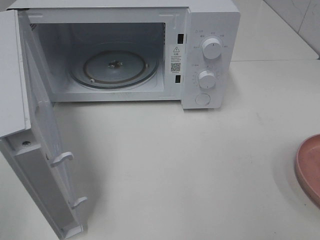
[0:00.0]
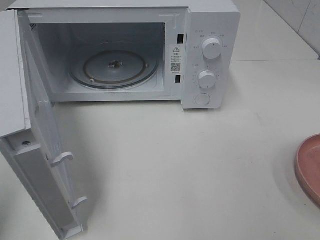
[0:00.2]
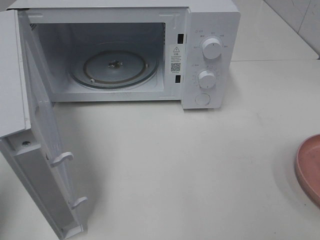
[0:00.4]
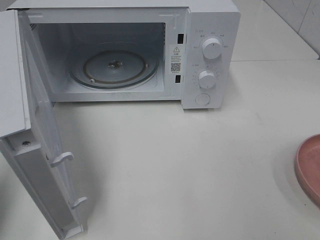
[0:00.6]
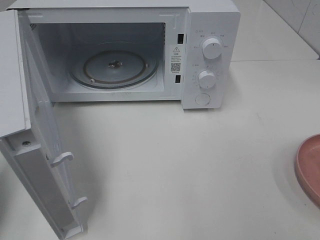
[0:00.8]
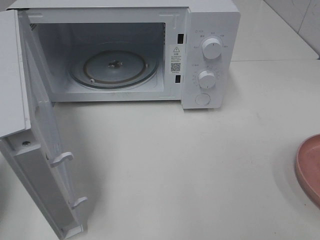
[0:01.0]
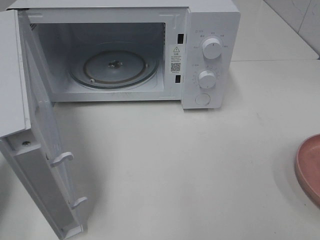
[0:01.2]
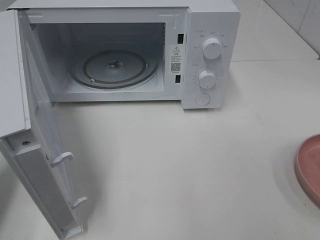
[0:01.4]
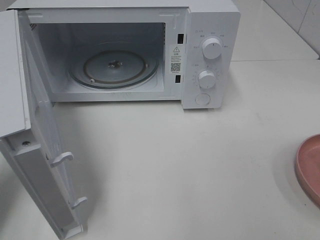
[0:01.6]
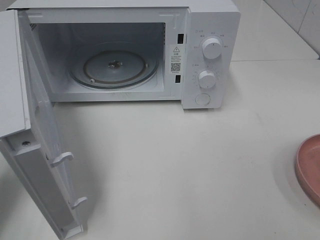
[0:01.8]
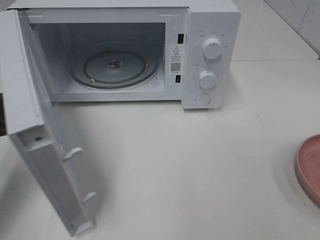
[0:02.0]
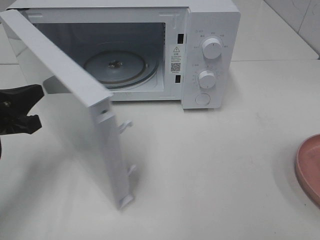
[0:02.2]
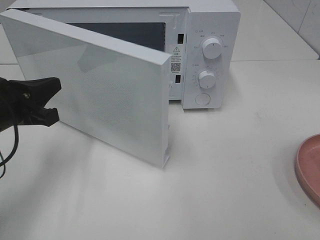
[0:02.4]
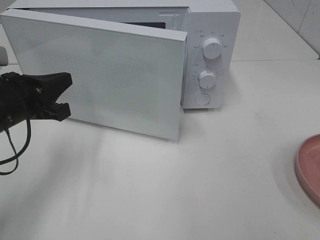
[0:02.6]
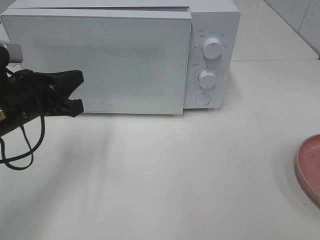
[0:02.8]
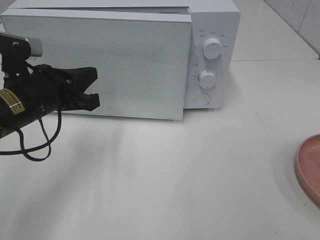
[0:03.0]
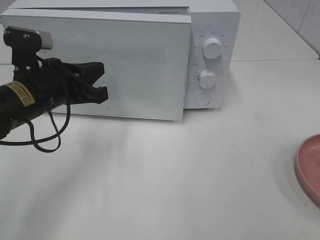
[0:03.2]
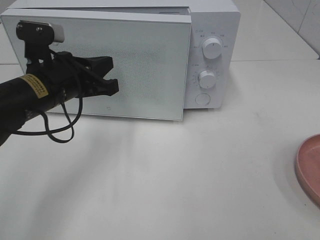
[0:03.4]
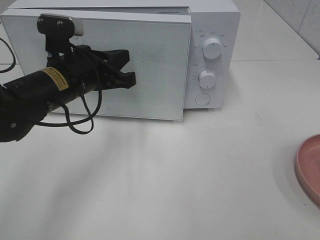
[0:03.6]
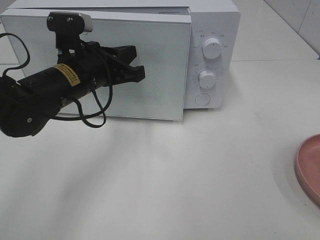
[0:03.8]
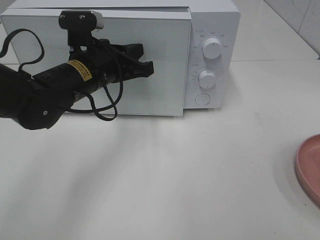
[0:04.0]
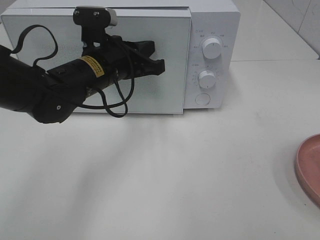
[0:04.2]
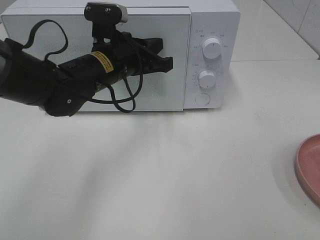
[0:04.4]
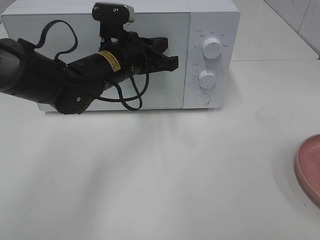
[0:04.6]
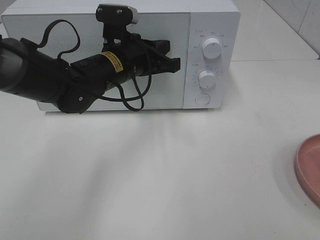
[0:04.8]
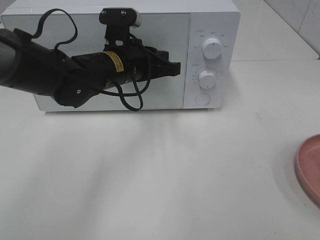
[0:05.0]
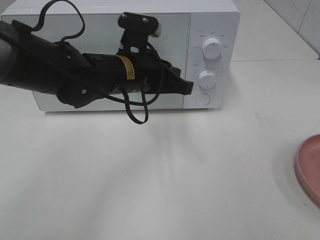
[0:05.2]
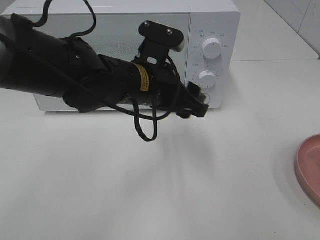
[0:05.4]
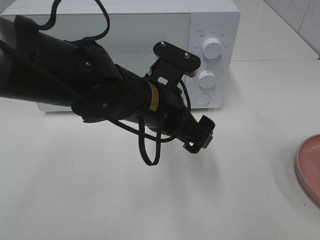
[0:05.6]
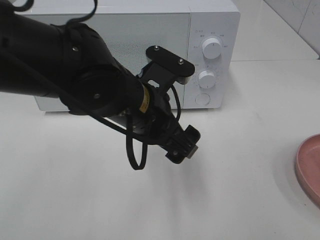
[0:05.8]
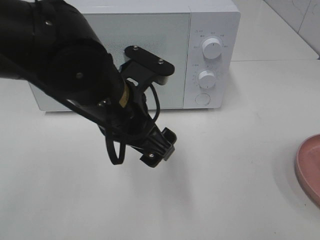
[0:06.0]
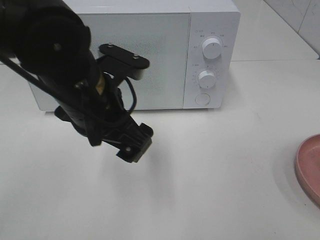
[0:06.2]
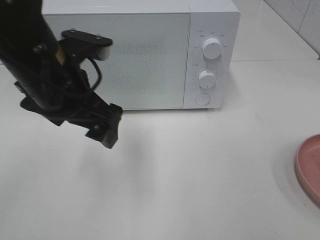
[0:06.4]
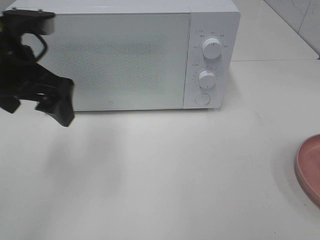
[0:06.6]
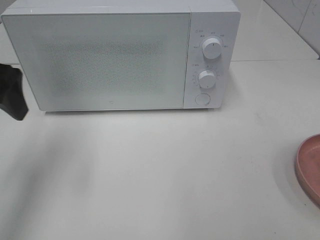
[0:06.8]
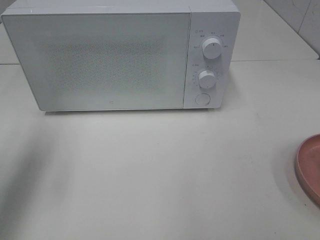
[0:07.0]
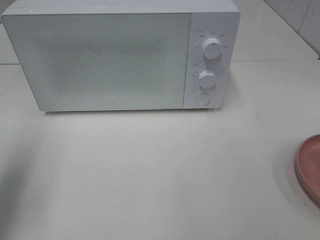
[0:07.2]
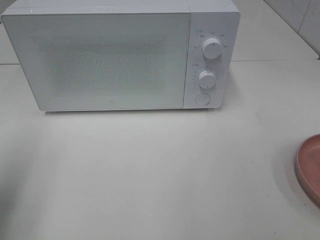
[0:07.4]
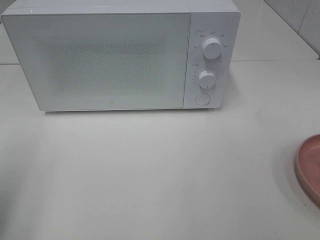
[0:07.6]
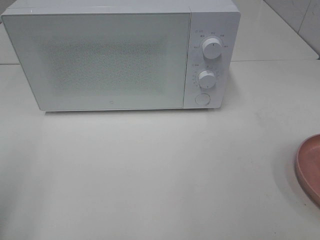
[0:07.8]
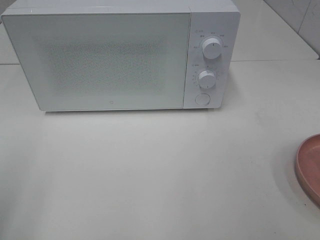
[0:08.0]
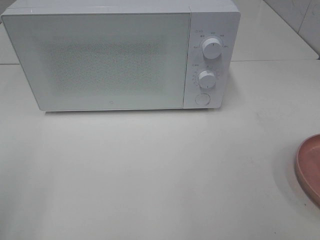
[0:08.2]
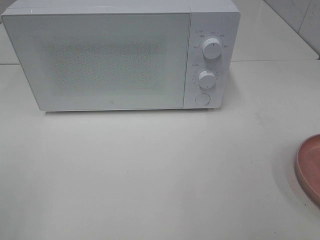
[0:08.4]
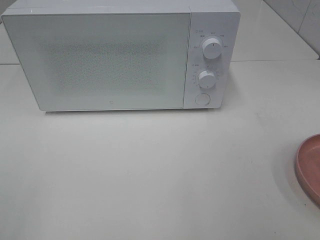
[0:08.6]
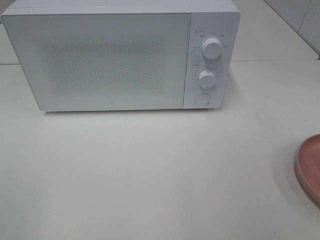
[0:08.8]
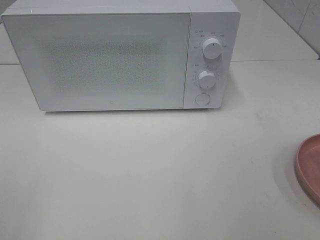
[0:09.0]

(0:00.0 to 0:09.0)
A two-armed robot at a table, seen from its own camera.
Task of the whole recording: Heat the burger.
Step, 0:00.0 - 0:03.2: Left hand: close the microwave door.
0:00.0 - 0:01.6: The left gripper shifts about 20 cm forward and downward, and closes up.
0:01.6 - 0:03.0: The left gripper is displaced to the right and forward by roughly 15 cm.
0:03.0 - 0:04.4: The left gripper shifts approximately 15 cm to the right and forward.
0:04.4 - 0:06.0: The left gripper is displaced backward by approximately 10 cm, and opens.
0:06.0 - 0:07.6: The left gripper moves to the left and backward, some 30 cm.

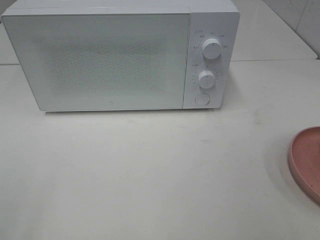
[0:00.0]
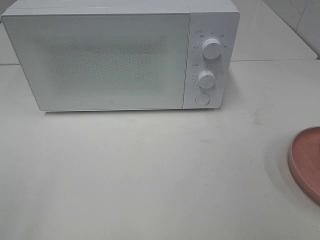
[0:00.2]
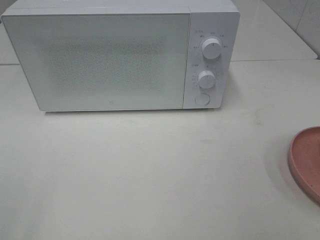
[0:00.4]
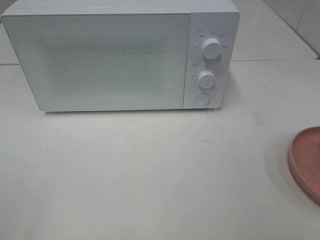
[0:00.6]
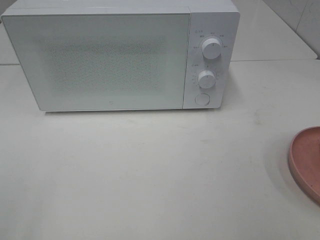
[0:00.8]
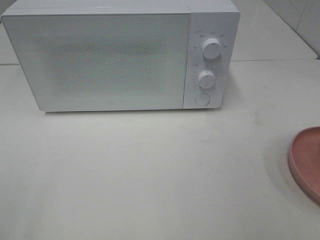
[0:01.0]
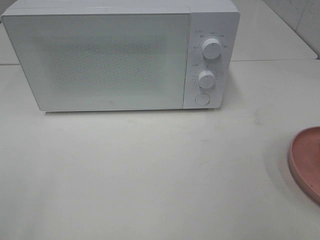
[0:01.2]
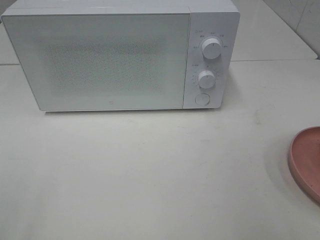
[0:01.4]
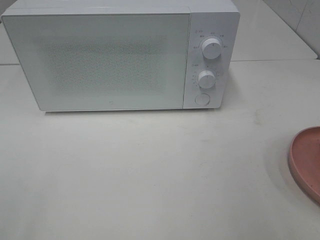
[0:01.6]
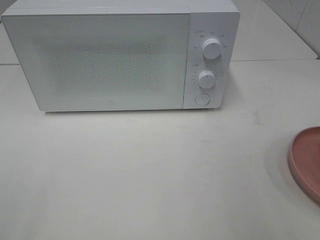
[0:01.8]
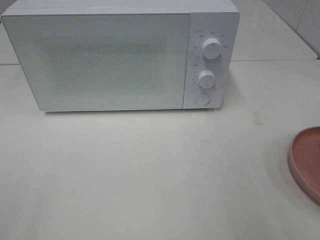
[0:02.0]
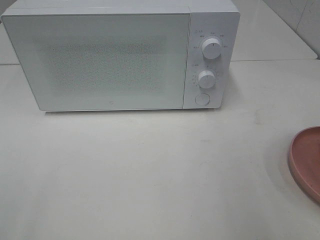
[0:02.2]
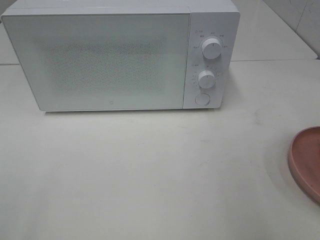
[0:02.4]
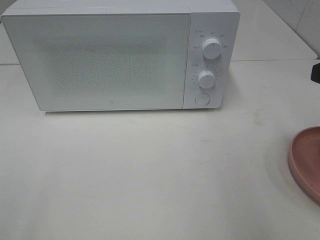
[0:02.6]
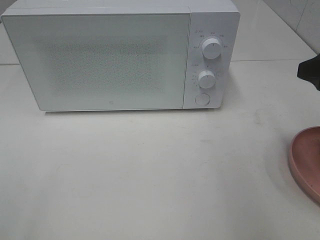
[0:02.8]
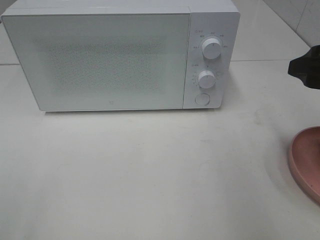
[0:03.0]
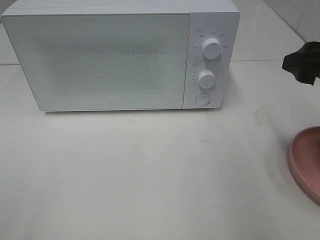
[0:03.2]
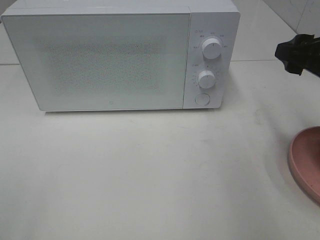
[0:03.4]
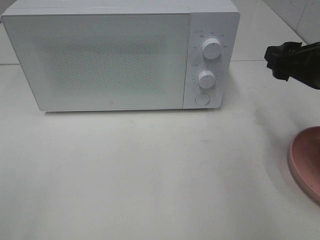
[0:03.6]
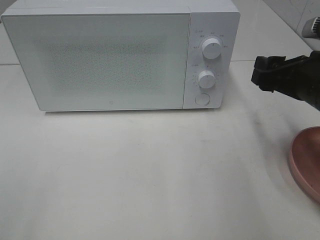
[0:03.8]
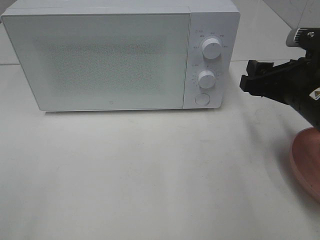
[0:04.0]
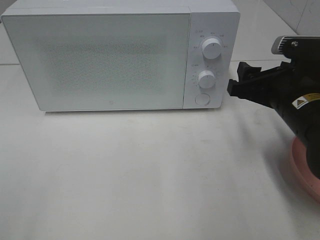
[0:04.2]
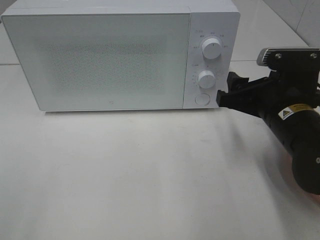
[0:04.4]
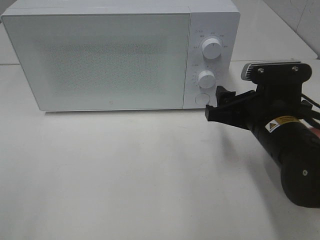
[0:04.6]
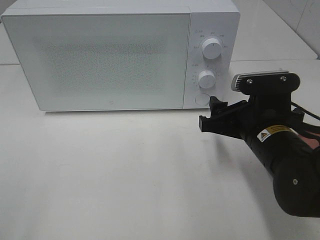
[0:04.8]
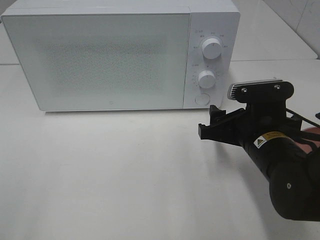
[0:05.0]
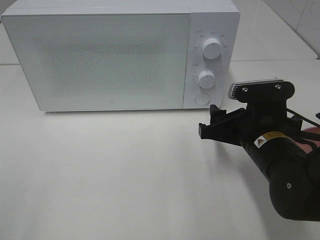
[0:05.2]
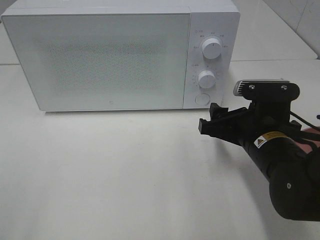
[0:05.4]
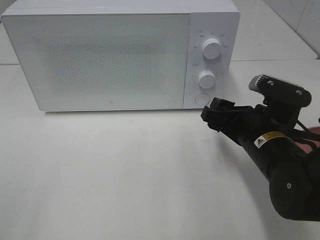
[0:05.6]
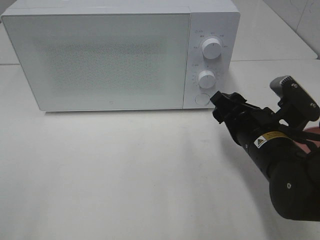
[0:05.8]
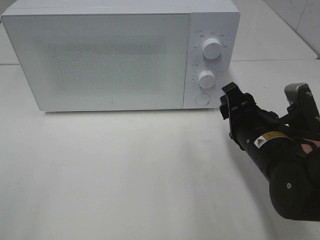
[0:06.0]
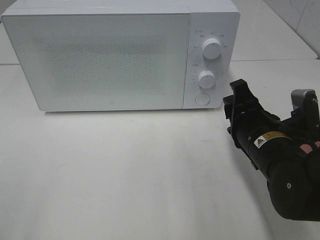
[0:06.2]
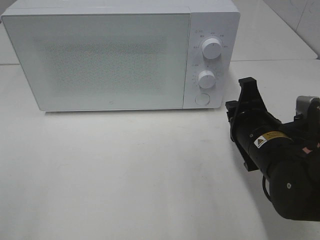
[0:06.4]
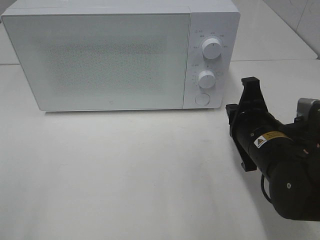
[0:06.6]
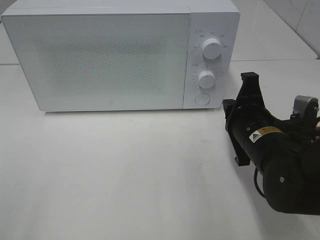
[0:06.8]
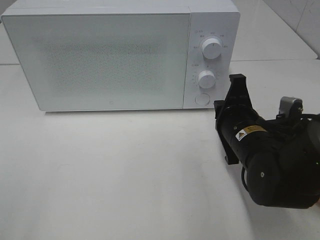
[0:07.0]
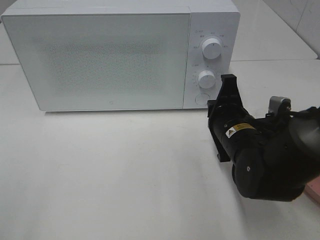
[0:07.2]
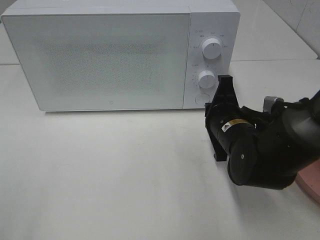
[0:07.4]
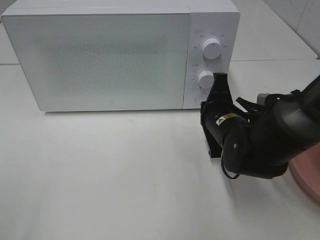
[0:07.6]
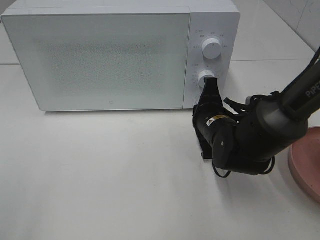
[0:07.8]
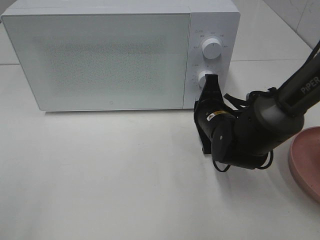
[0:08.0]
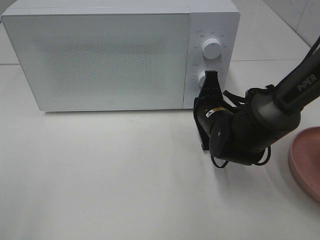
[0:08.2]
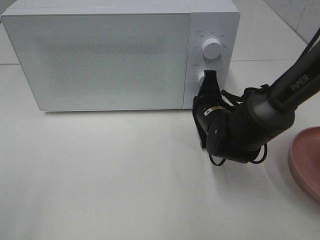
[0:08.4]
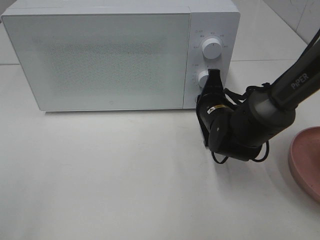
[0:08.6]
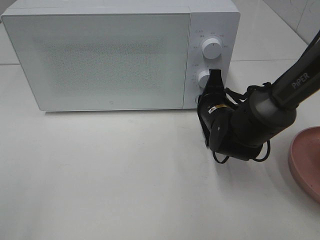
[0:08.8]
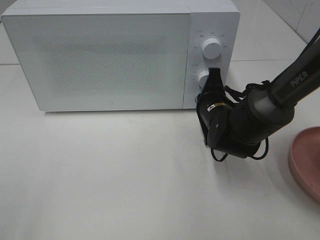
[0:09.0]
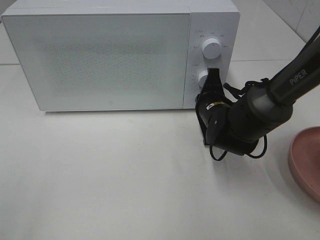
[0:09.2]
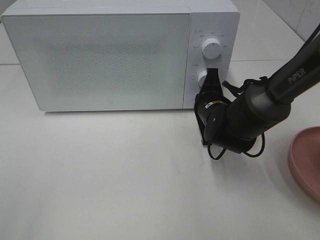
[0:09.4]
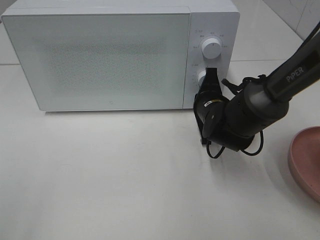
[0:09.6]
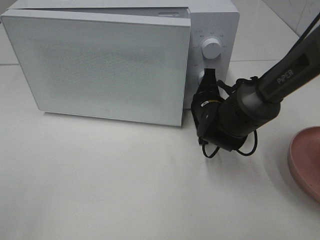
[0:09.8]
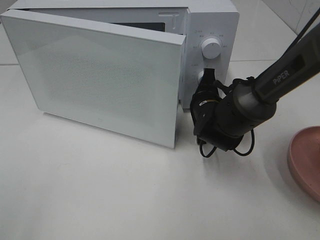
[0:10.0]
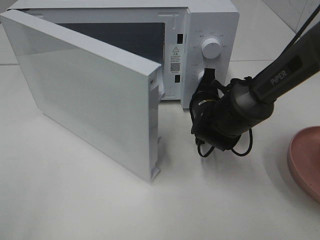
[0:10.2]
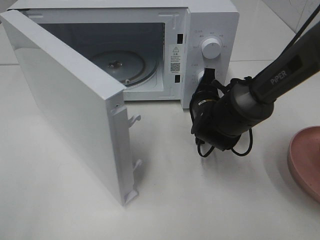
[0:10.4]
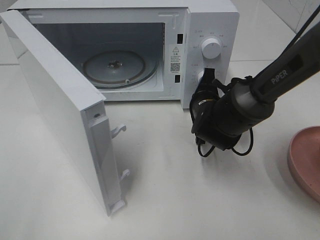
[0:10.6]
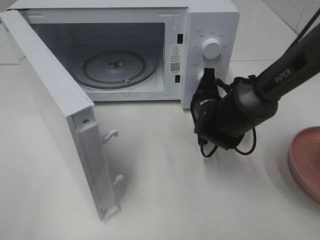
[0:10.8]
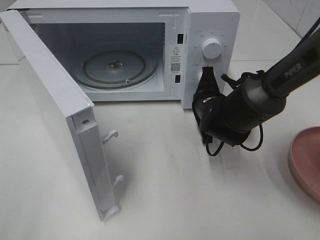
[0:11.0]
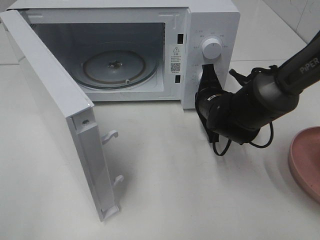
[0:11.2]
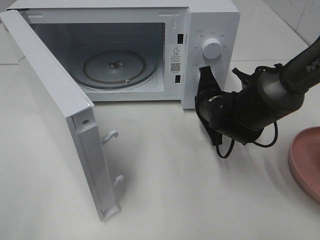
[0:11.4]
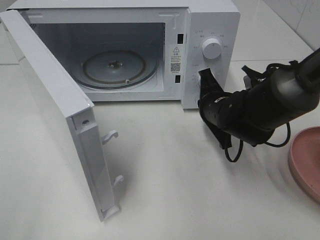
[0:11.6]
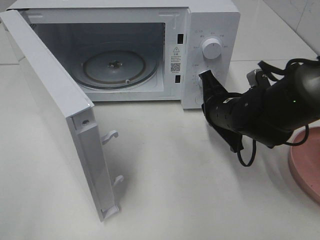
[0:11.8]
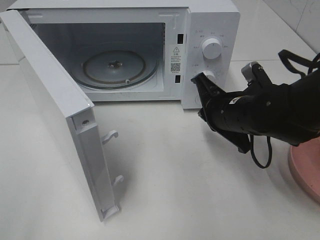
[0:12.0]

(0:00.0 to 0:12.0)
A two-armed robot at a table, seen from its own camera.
Task of the whole recording: Heat the burger.
Step, 0:00.0 - 0:12.0: Right hand: press the switch.
0:01.6 - 0:03.0: The right gripper goes roughly 15 cm forward.
0:03.0 - 0:04.4: The right gripper is displaced downward and to the left by about 15 cm.
0:06.0 - 0:07.6: The right gripper shifts approximately 5 cm forward, and closes up.
0:07.6 - 0:09.0: The right gripper moves roughly 5 cm.
0:10.4 - 0:12.0: The right gripper shifts approximately 10 cm backward and upward.

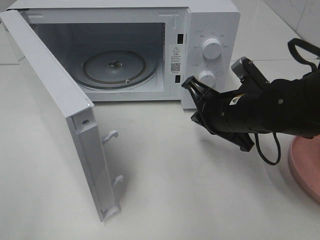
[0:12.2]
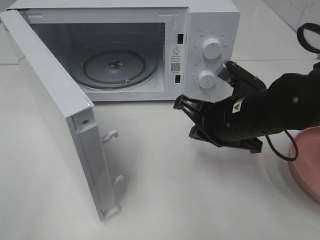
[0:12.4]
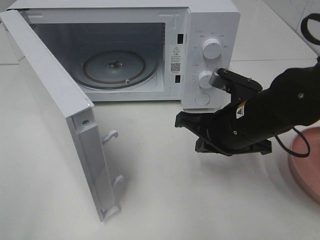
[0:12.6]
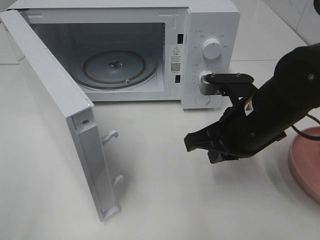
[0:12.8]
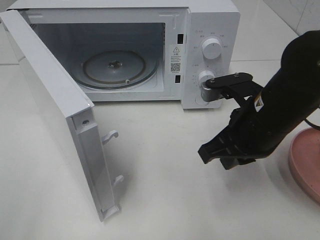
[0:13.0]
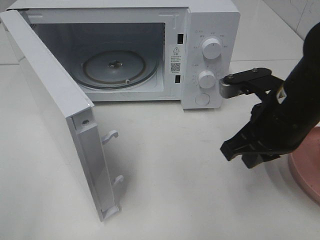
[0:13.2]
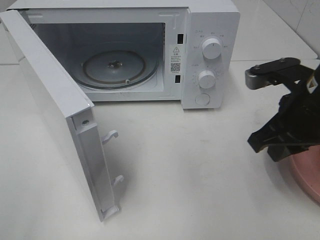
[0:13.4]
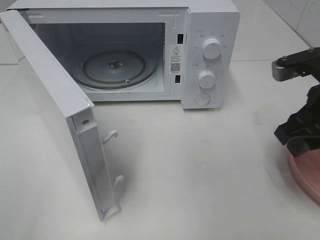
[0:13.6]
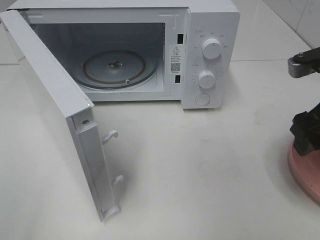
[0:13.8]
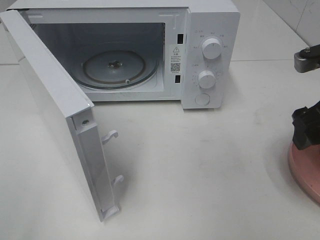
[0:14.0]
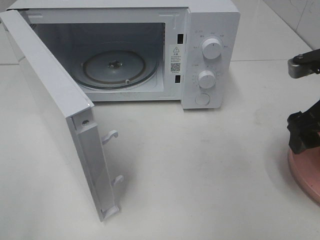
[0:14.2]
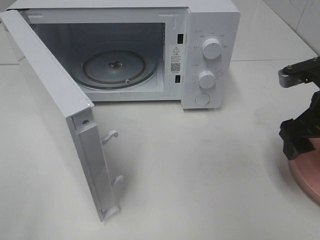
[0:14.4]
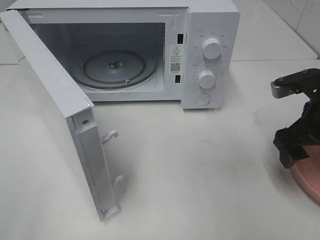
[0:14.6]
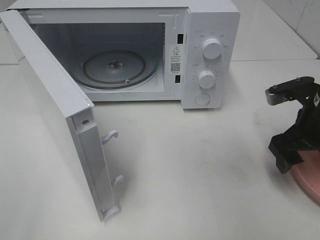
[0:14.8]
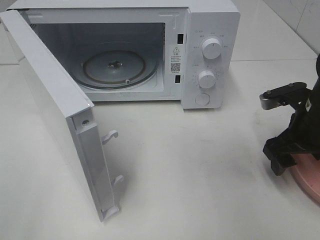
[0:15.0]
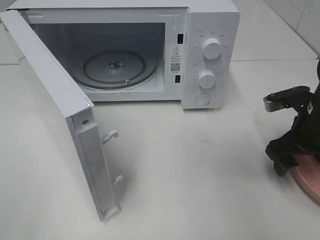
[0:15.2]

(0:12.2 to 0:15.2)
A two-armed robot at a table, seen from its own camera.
Task of the whole recording: Heat the burger.
0:12.2 - 0:13.8: The right gripper heads to the right and upward, covering approximately 15 cm, and opens up.
0:13.8 - 0:15.2: The right gripper heads downward, covering about 10 cm.
